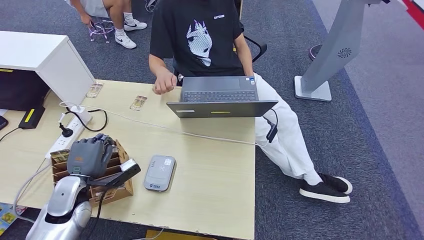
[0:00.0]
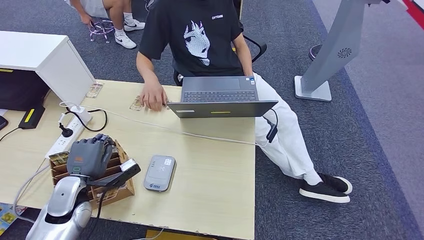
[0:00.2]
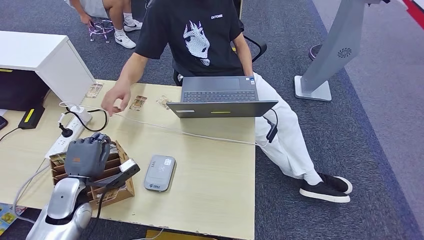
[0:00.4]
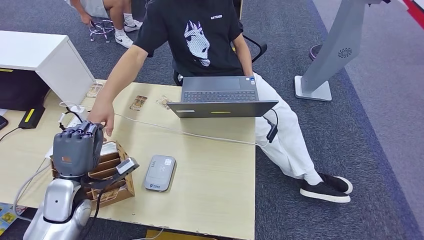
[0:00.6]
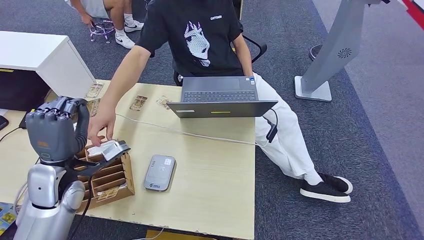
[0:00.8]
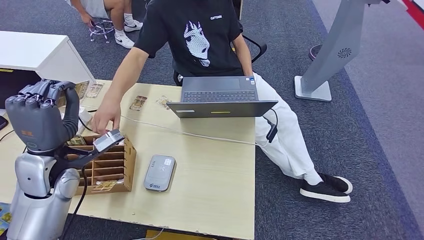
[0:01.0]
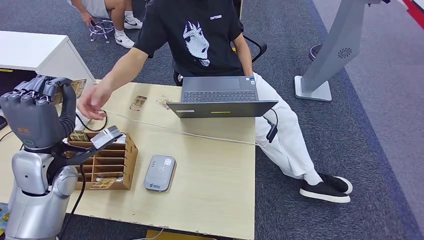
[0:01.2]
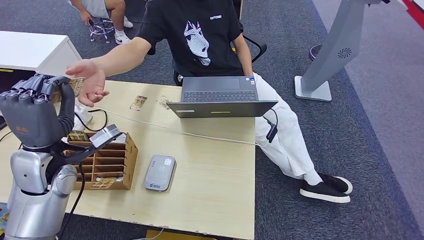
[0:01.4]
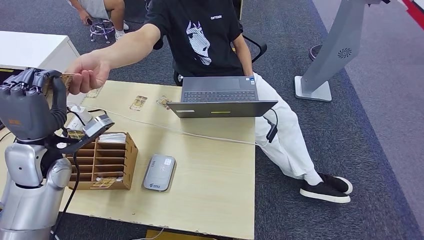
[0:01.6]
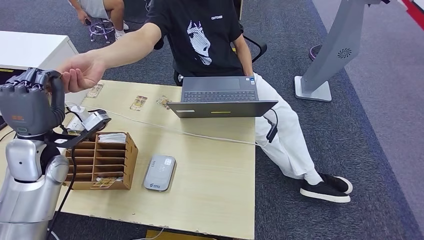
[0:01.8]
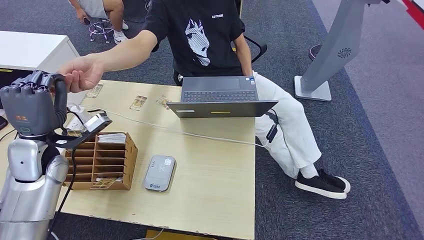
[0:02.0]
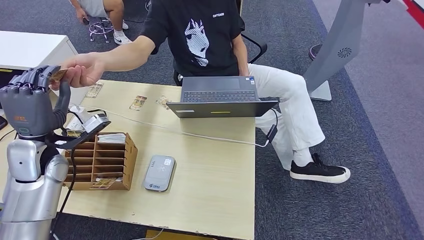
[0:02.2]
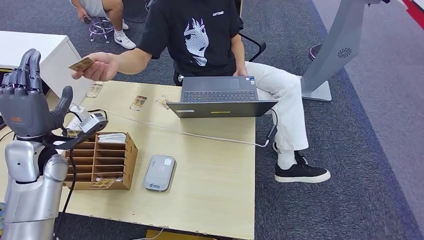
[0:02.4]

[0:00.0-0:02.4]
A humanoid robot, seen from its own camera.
Step, 0:01.0 to 0:02.4: Hand the room key to the person.
0:00.0 to 0:01.2: The left hand moves upward, some 15 cm.
0:01.2 to 0:02.4: The left hand moves to the left, approximately 5 cm.
